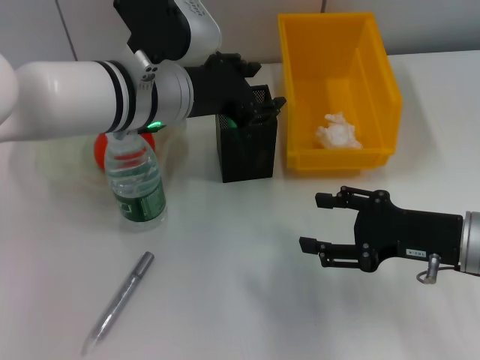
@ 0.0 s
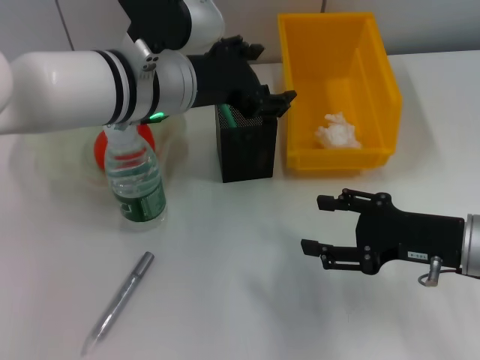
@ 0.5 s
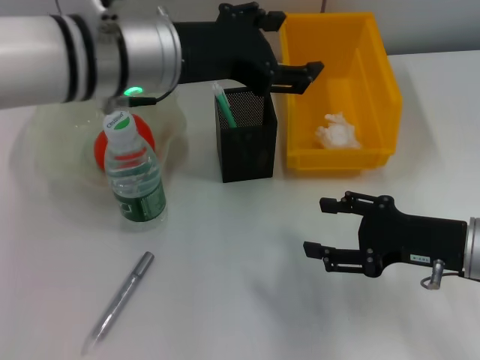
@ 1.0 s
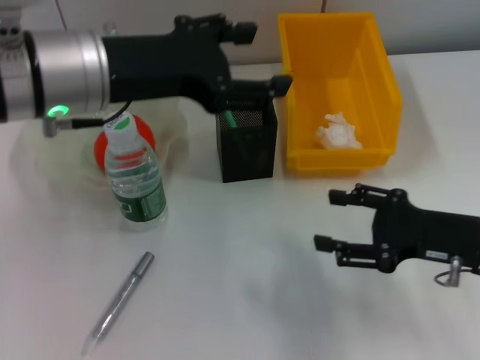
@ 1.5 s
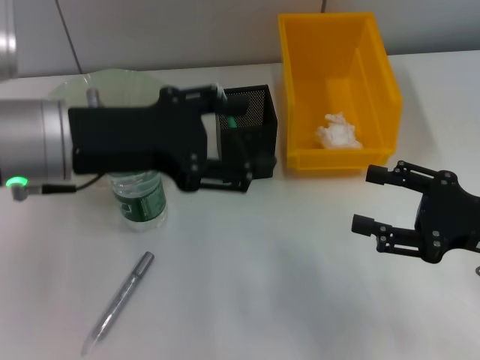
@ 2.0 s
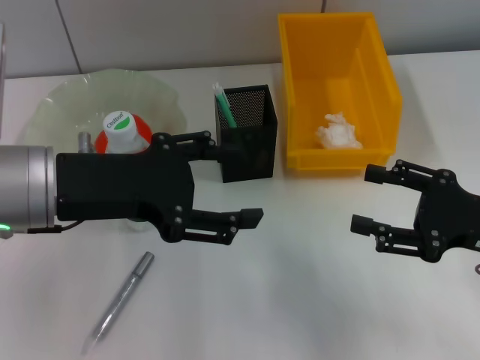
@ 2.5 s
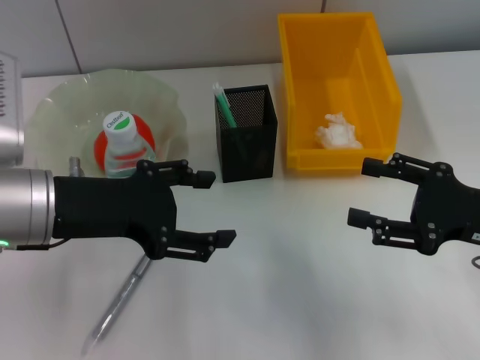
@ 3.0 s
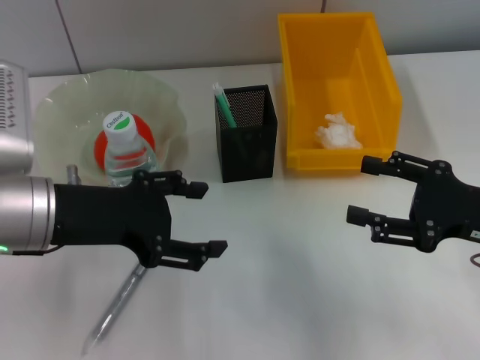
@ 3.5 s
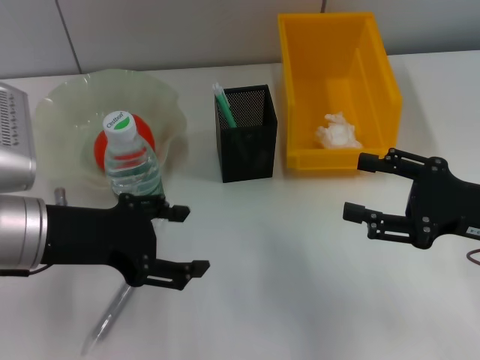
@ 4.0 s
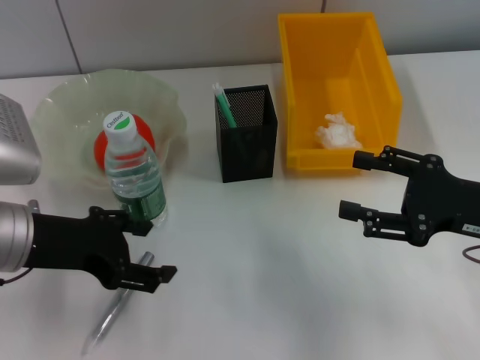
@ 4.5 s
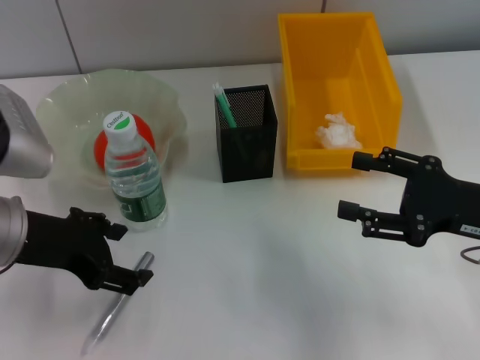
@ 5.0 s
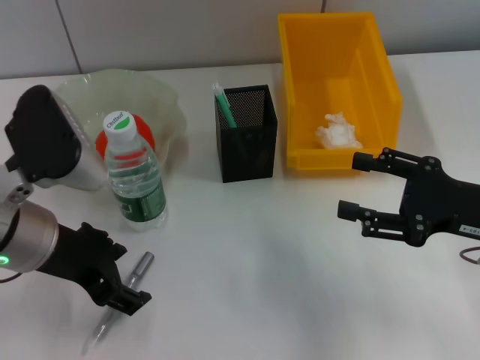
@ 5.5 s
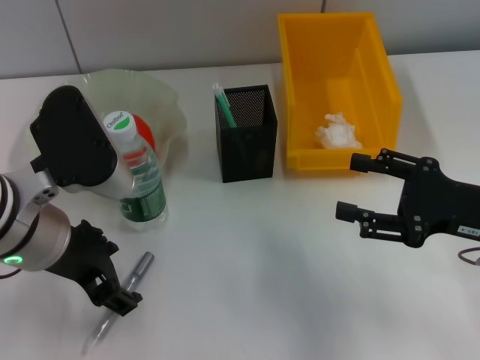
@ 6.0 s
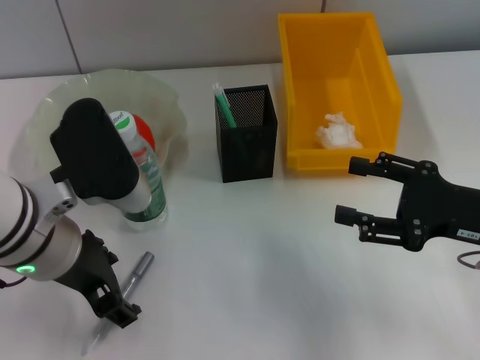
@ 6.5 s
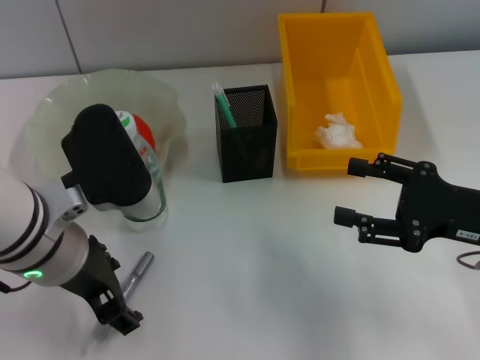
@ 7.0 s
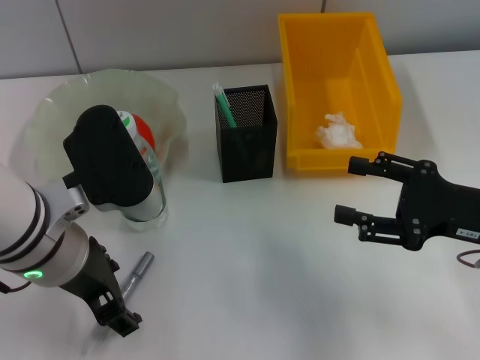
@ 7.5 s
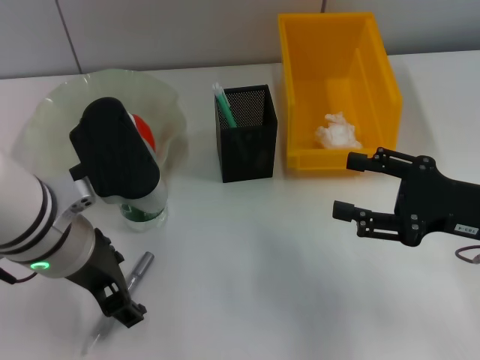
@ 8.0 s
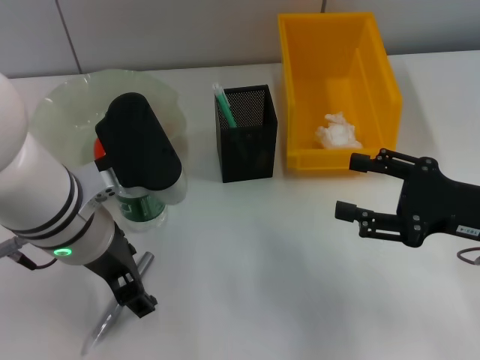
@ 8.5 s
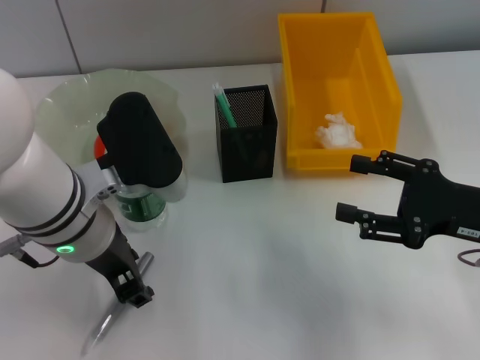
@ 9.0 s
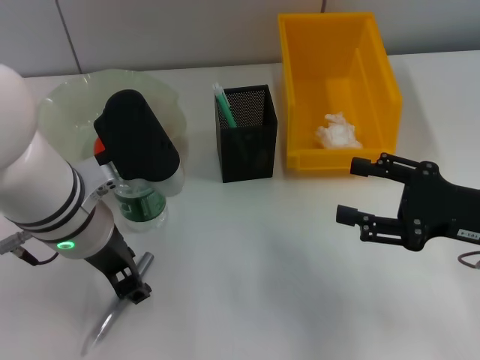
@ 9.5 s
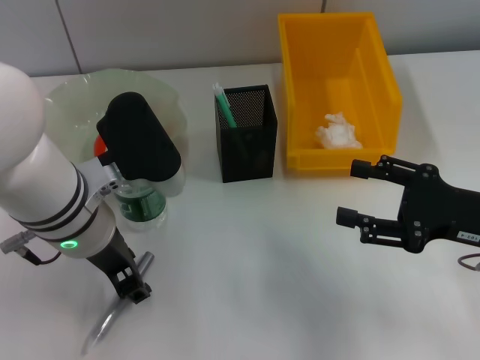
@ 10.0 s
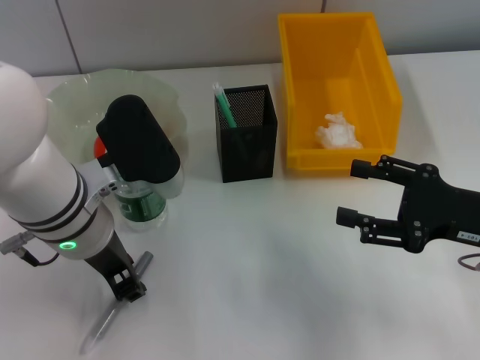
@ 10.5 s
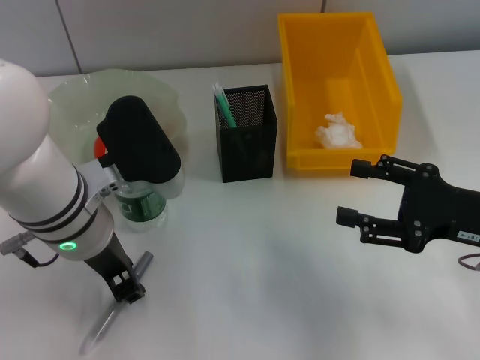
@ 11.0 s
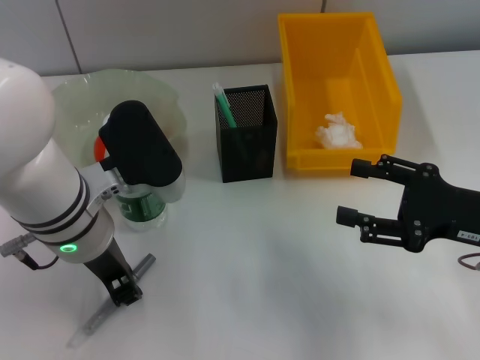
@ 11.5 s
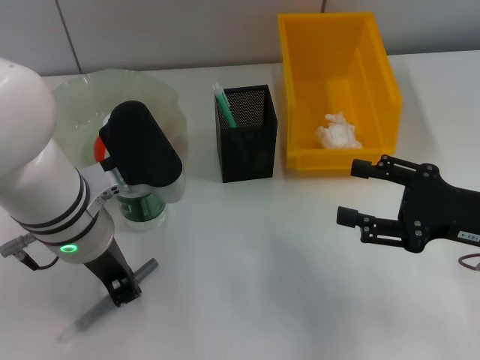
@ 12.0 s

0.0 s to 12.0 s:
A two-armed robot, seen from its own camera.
0.0 to 2.0 s: The right gripper ends up approximately 5 cm from where it was. The left gripper shifts some 10 cm to the left and backward, and opens.
2.0 to 4.0 s: The left gripper moves downward, roughly 5 cm.
6.0 to 8.0 s: The grippers make only small movements.
8.0 to 10.0 s: The left gripper closes.
10.0 to 12.0 s: The left gripper closes.

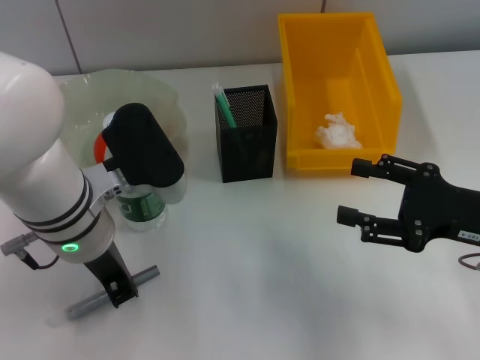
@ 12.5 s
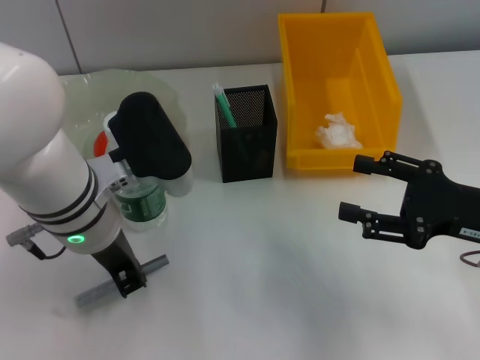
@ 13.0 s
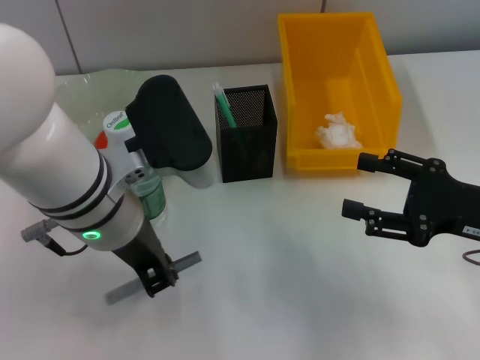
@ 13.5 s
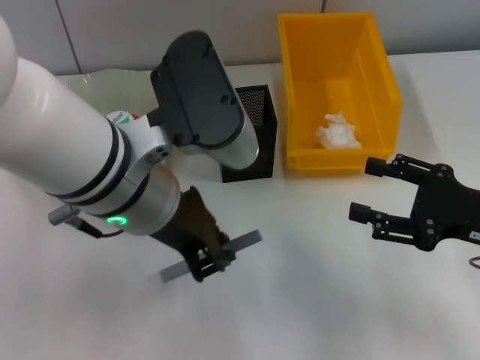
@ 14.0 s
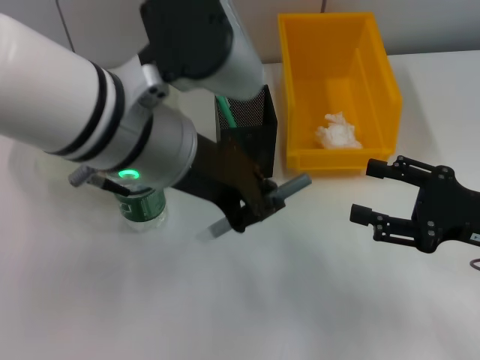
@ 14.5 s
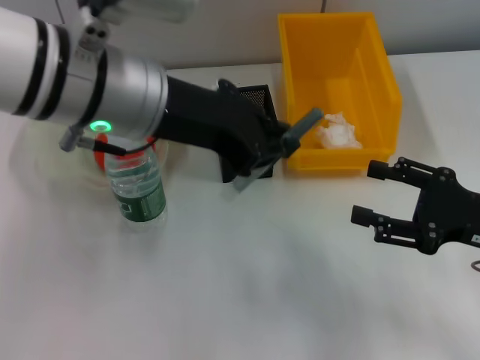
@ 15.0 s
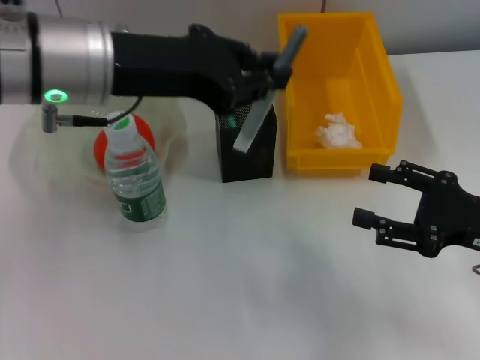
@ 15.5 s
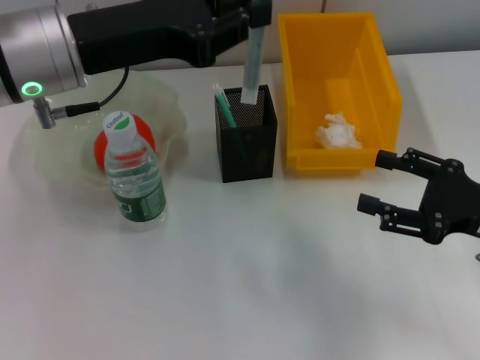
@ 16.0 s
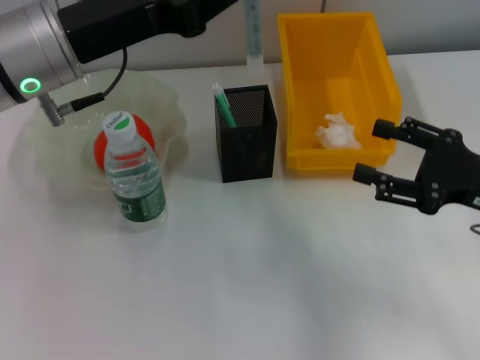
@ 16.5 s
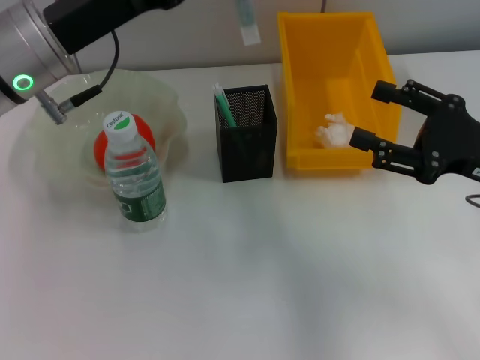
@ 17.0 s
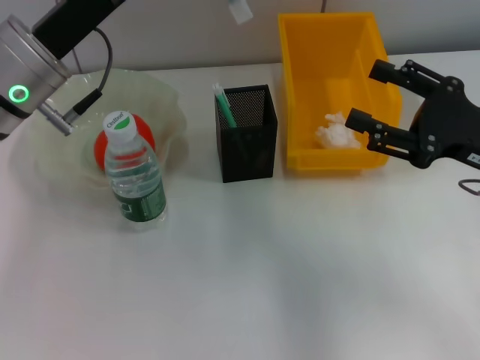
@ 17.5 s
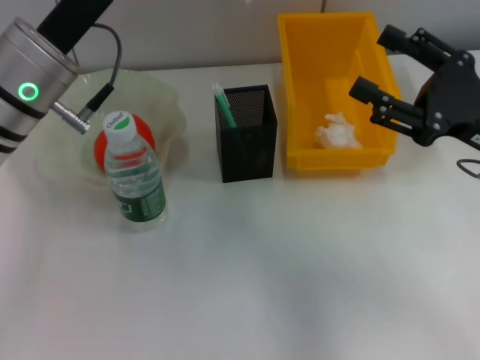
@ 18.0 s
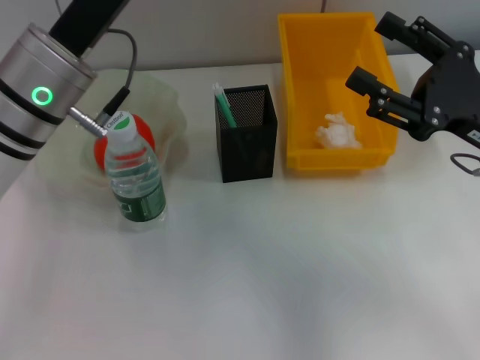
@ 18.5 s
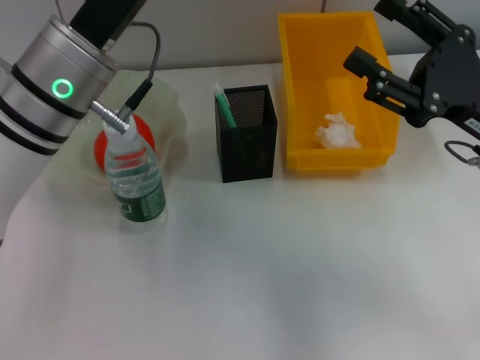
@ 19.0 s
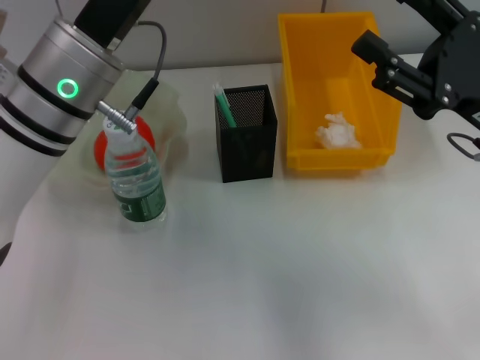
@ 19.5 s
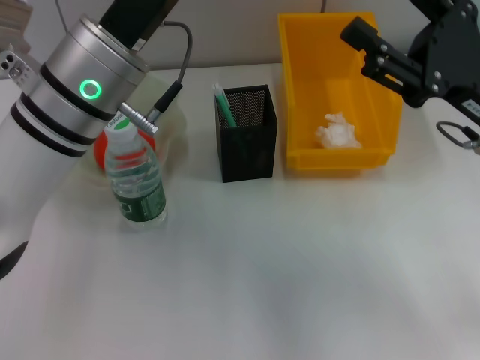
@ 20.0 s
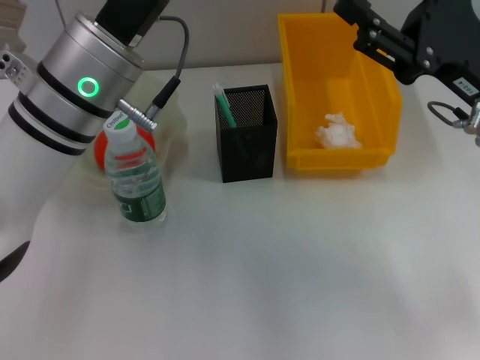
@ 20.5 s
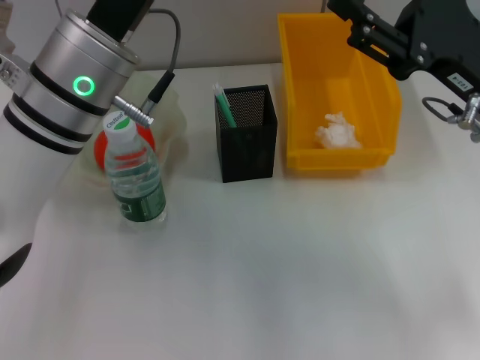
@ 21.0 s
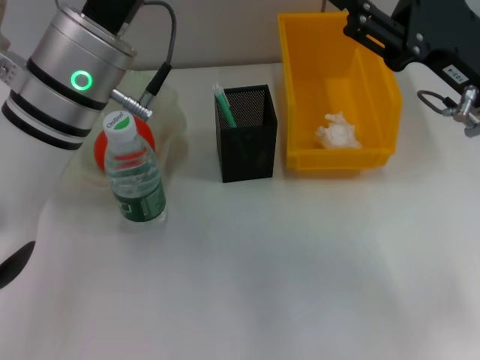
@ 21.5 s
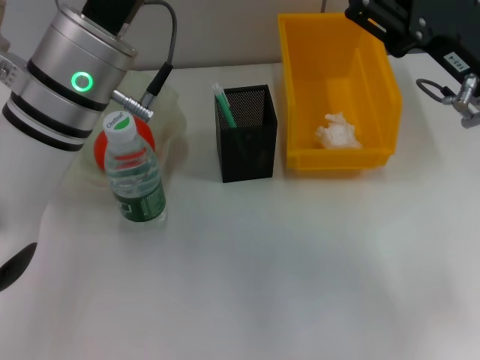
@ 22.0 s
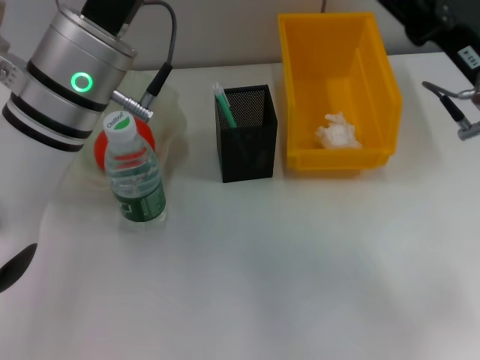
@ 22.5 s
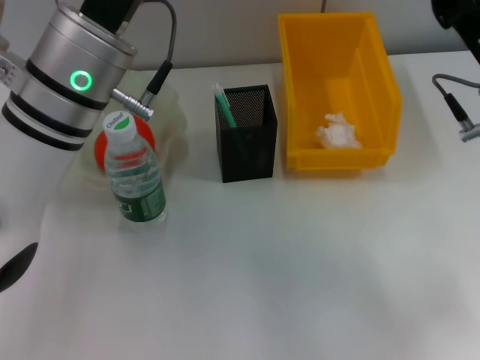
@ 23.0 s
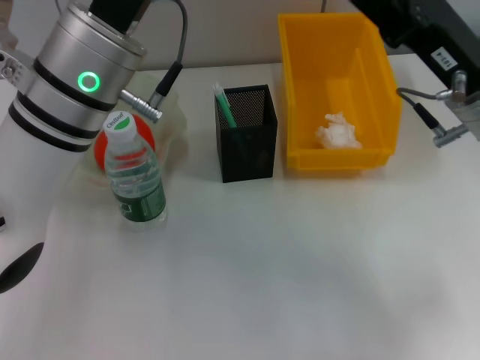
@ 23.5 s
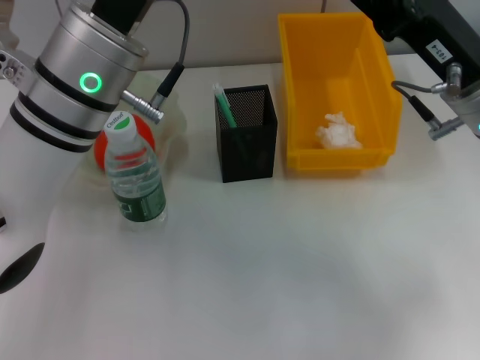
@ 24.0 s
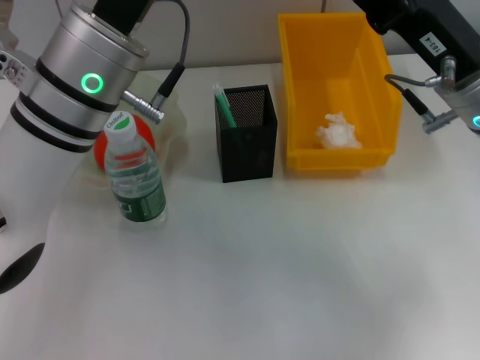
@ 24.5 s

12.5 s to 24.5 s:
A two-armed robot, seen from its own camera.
12.5 to 14.5 s: The left gripper heads upward and to the right, covering roughly 10 cm.
14.5 to 16.5 s: The left gripper shifts some 10 cm to the left and forward.
18.5 to 20.5 s: The grippers move only a little.
20.5 to 22.5 s: The grippers stay close to where they were, moving slightly.
22.5 to 24.5 s: The grippers move only a little.

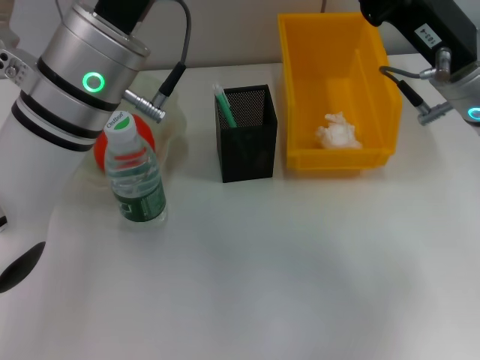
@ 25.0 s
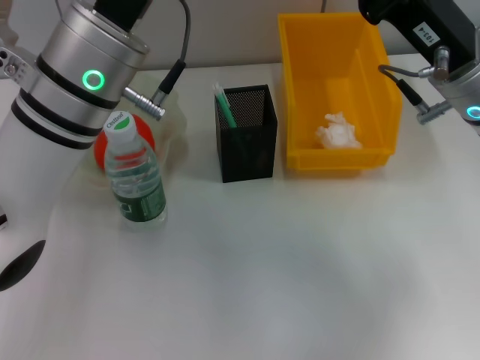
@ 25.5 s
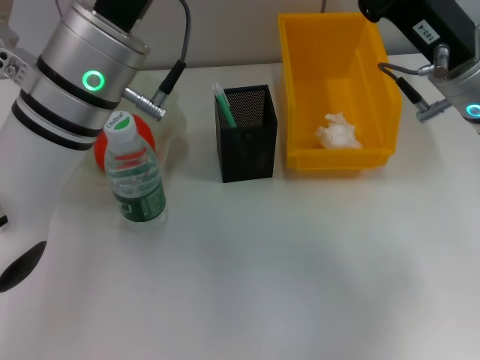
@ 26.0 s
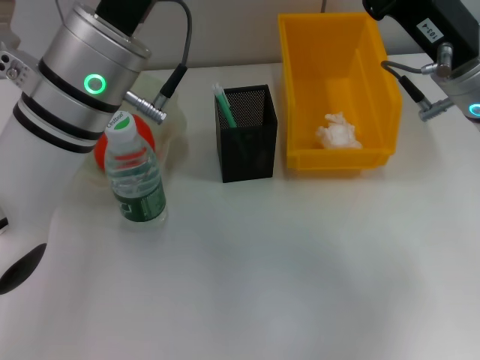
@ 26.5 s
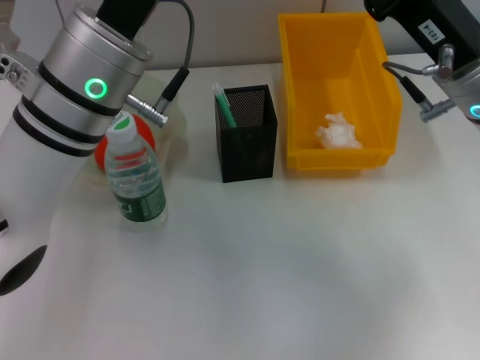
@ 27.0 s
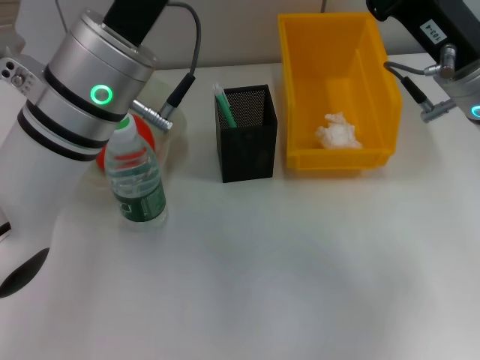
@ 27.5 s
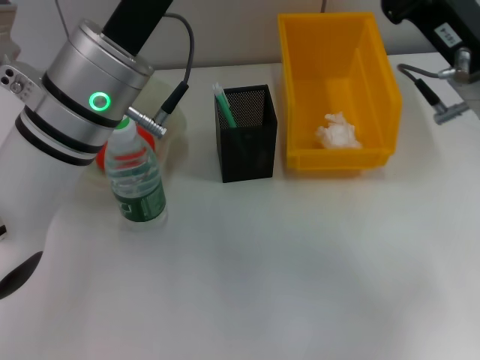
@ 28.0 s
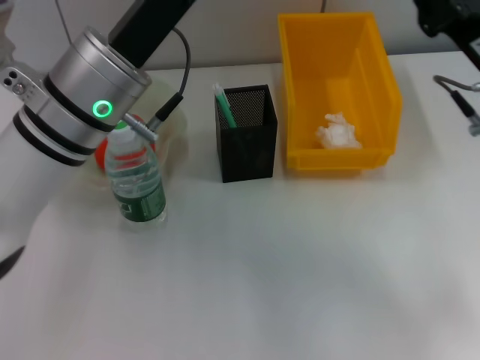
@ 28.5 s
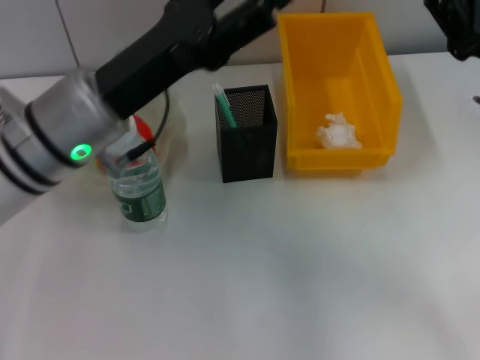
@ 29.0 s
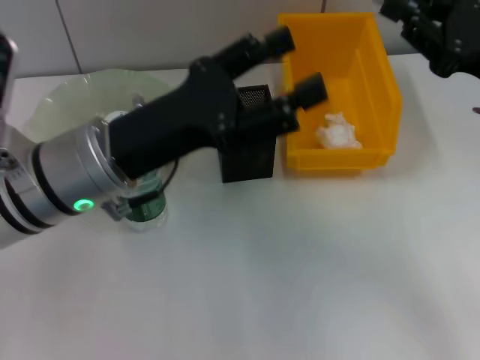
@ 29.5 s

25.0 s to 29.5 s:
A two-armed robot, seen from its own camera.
Step, 25.0 to 27.0 s: Pass the gray glue from the left hand to the right hand.
25.0 to 27.0 s: The right gripper closes its fingers.
27.0 to 29.5 s: The left gripper changes place by roughly 5 cm, and opens its fingers. The right gripper moves to the right, approximately 10 cm.
